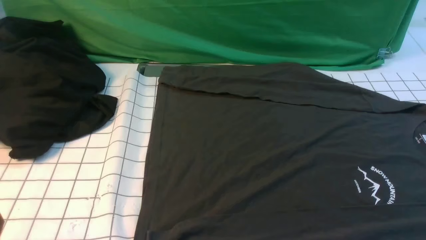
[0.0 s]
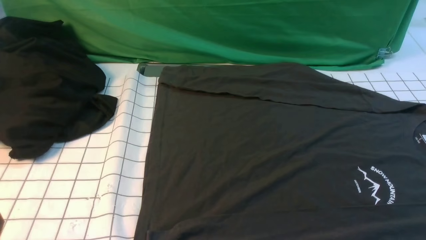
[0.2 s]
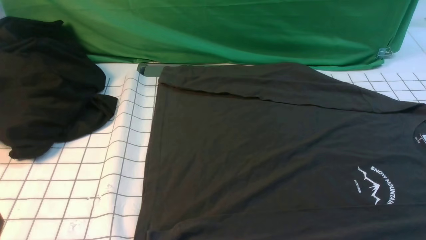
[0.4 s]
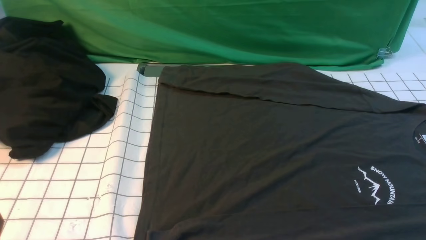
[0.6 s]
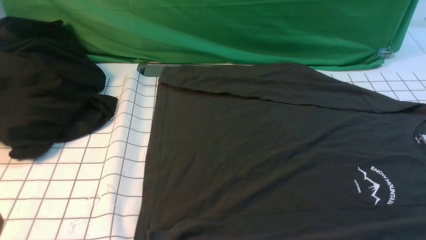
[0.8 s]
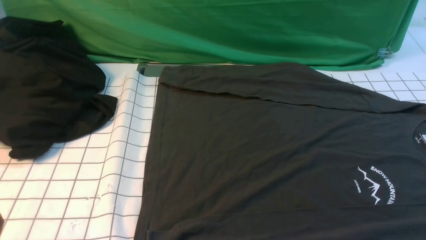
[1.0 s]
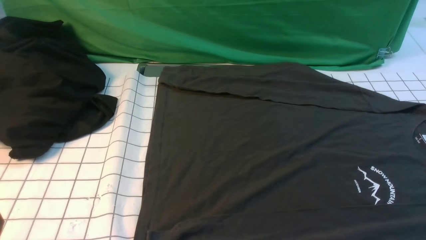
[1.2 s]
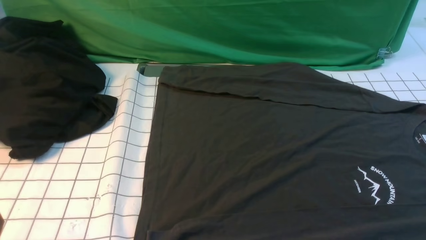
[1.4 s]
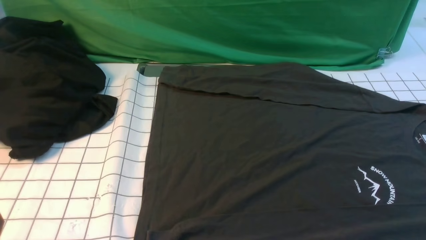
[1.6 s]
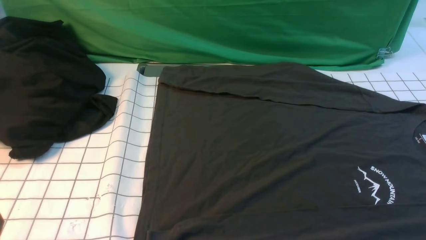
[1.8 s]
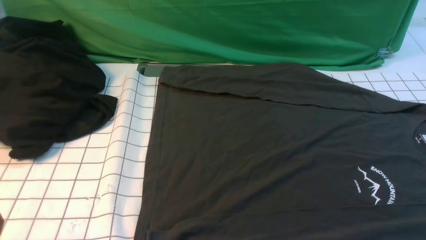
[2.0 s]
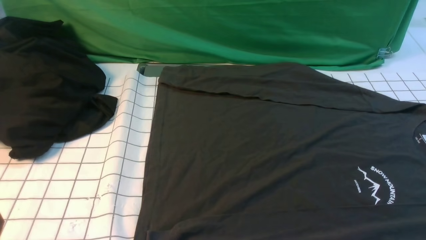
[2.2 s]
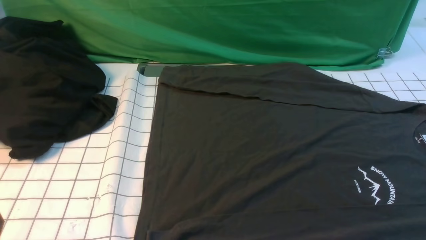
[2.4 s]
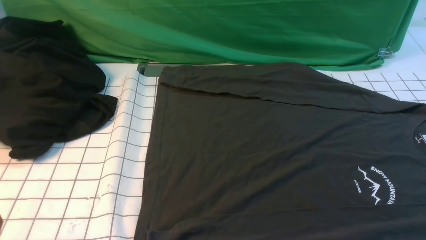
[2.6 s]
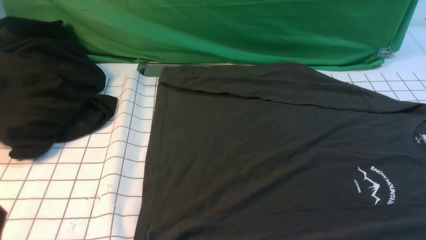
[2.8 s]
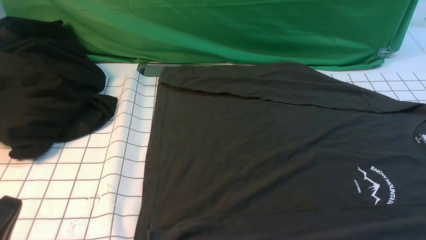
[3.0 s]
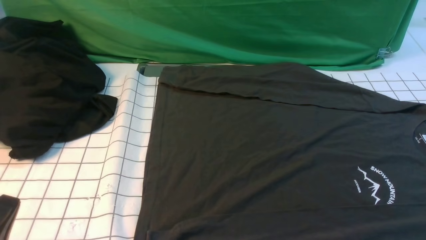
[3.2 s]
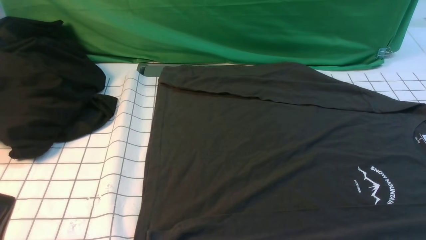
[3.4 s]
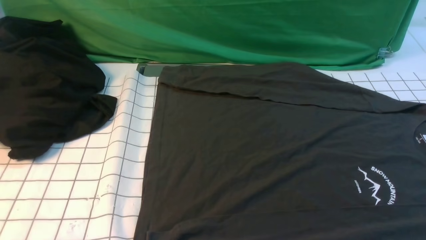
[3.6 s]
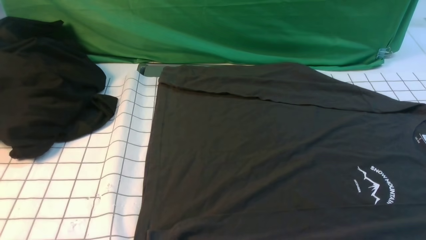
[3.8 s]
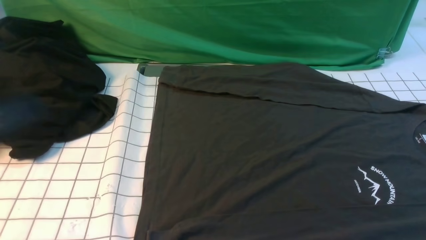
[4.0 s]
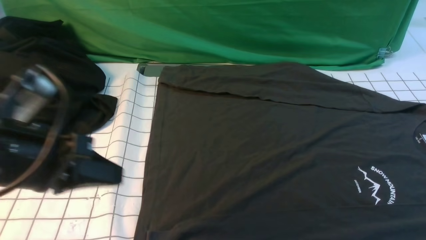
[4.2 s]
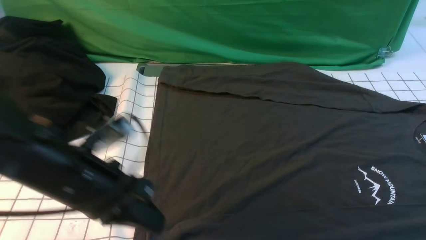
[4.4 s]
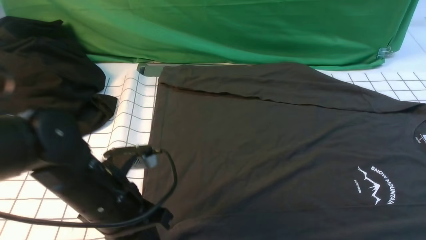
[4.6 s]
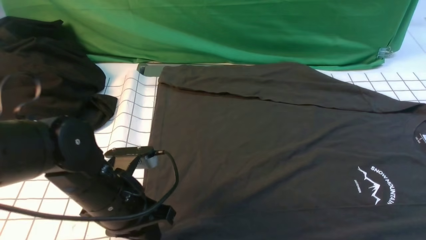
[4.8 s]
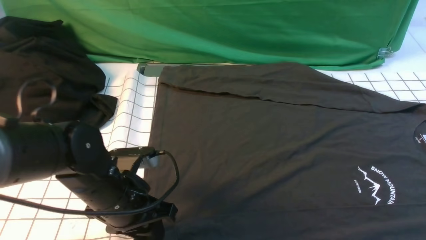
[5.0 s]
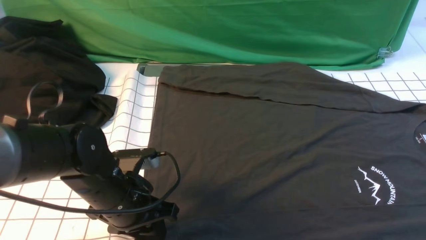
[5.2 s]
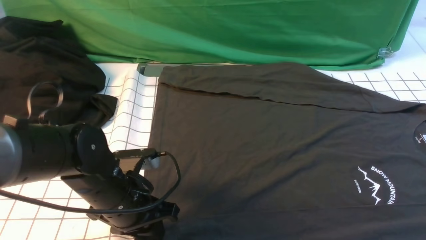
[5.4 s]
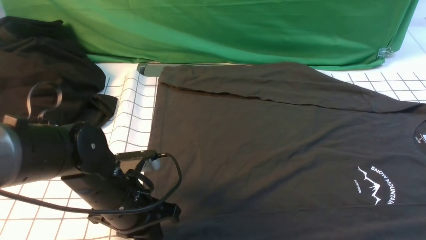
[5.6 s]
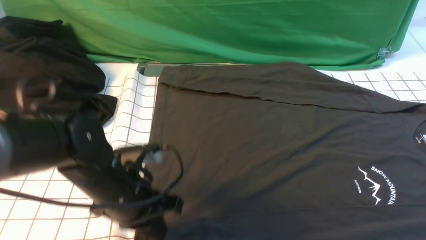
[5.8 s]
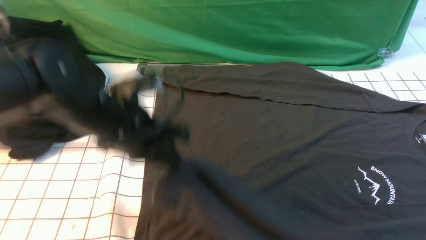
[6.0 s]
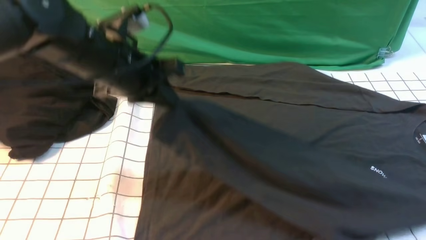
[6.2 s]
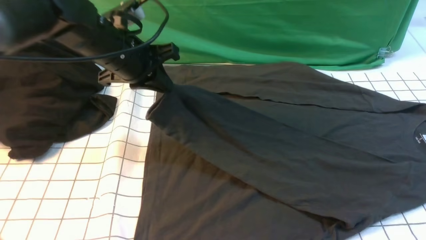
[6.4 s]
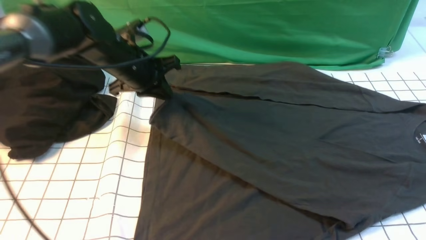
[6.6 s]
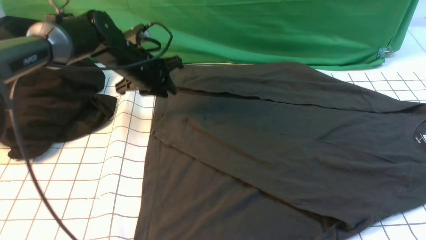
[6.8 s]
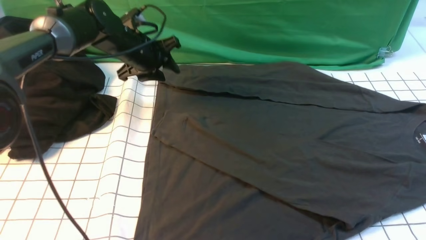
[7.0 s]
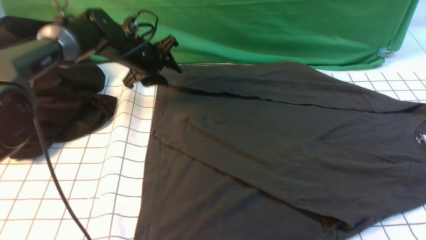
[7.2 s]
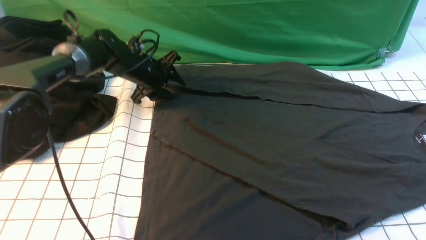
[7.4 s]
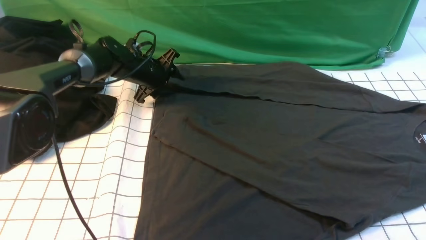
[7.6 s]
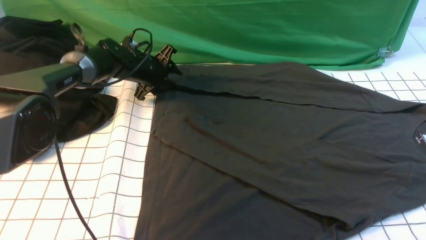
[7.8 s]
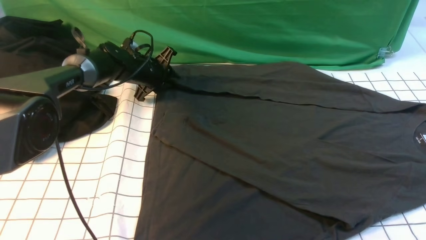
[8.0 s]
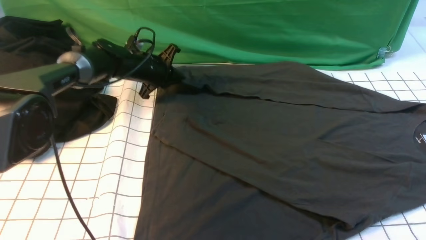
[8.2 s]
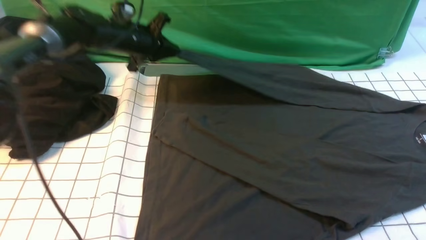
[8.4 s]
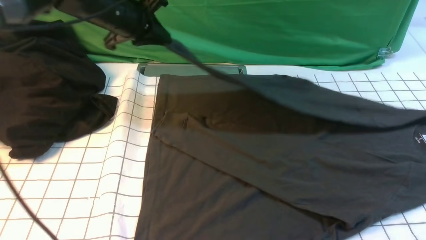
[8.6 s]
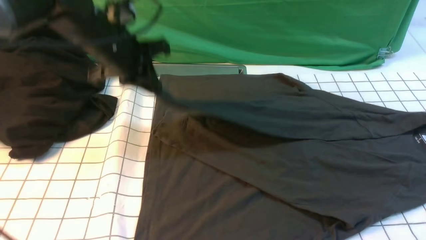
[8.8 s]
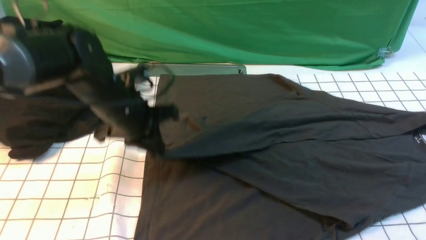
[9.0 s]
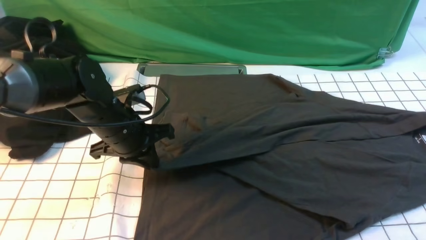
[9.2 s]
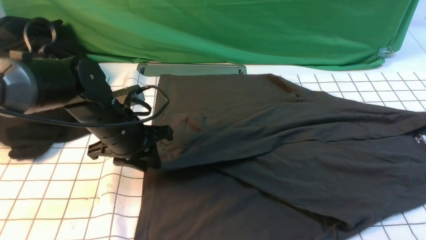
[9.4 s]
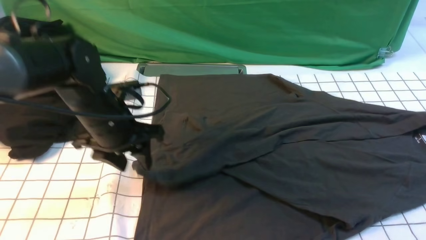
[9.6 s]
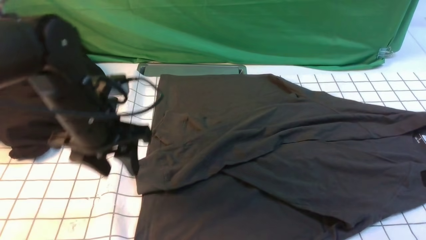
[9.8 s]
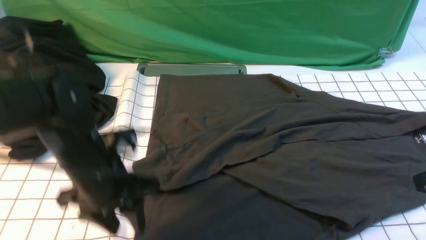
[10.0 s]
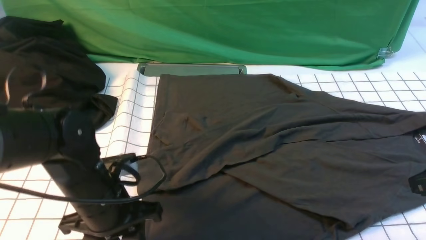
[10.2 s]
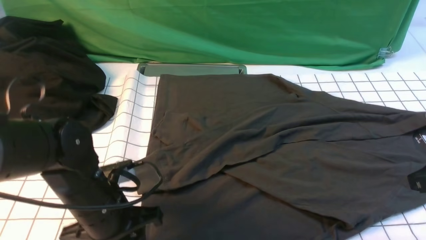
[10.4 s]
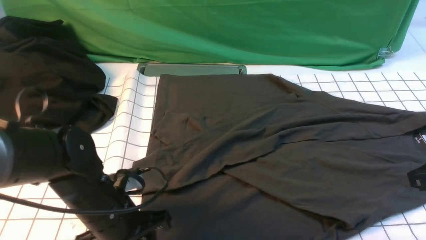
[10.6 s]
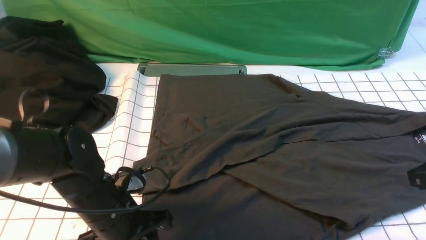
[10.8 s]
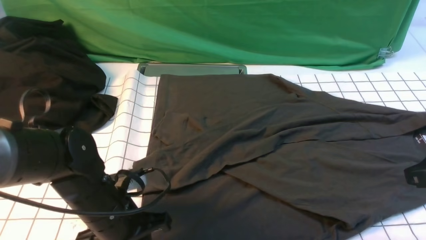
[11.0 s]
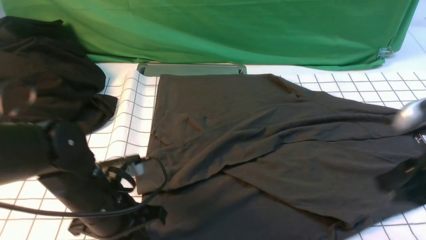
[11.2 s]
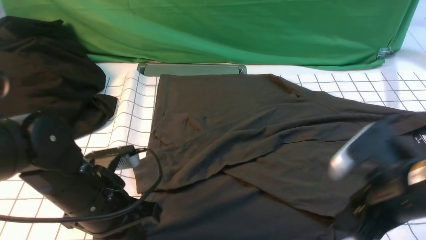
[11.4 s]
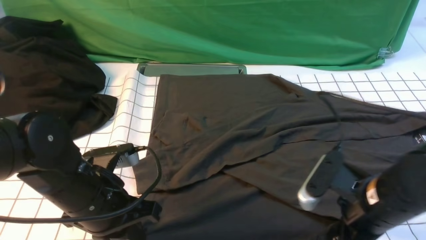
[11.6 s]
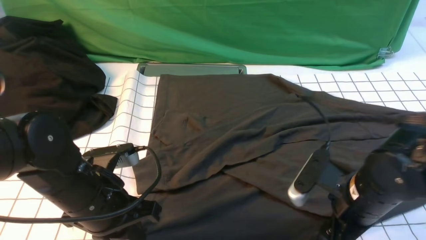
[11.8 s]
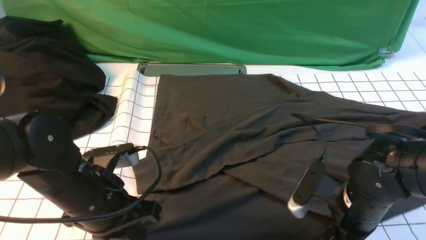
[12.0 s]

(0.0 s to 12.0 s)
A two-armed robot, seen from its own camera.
Step, 0.0 s - 5.6 s: use the left arm to clamp the cuff closest to it.
Step, 6.0 s - 6.6 s: use the left arm to drag and place the cuff at the centered position on the left edge of the fabric.
Step, 6.8 s - 8.0 s: use the left arm to clamp the cuff farthest from it.
Step, 8.2 s - 9.6 s: use the left arm to drag and drop the cuff onto the cuff closest to the left arm.
0.0 s - 1.6 s: Neither gripper changes place.
3.0 s - 4.4 s: The right gripper travels upward and forward by about 15 cm, and closes its fingers, while the left gripper heads forward and to the right, covering roughly 20 cm.
4.4 s - 6.0 s: The left gripper travels forward by about 10 cm, travels downward and back again, about 5 cm each way, and opens, then closes again.
6.0 s - 7.6 s: The left gripper goes approximately 25 cm forward and downward, and opens up.
7.6 s - 9.0 s: The left gripper goes roughly 20 cm backward and upward, and closes up.
9.0 s - 10.4 s: The right gripper moves forward, about 5 cm; the left gripper shifts approximately 15 cm backward and downward, and opens its fingers.
10.4 s - 12.0 s: The right gripper goes roughly 15 cm downward and to the left, and opens its fingers. Meanwhile the left gripper closes.

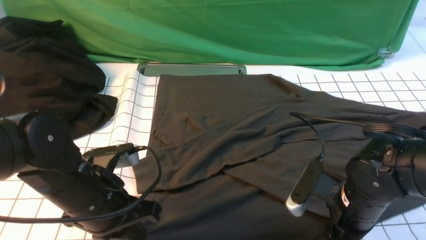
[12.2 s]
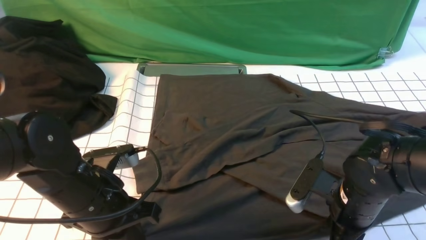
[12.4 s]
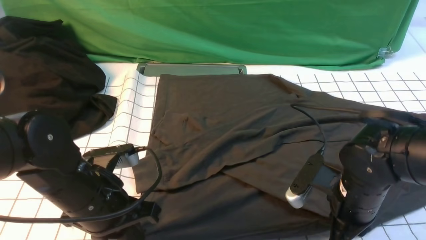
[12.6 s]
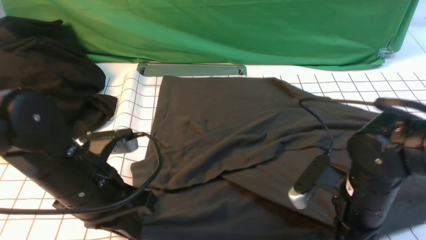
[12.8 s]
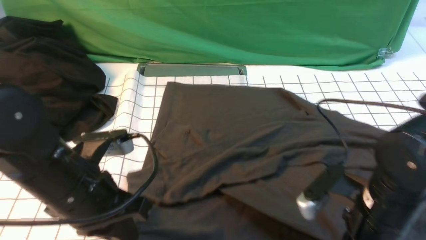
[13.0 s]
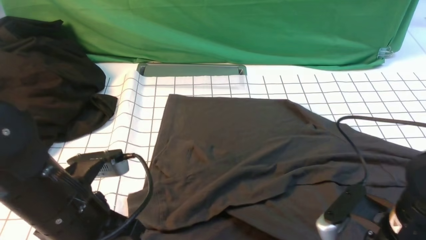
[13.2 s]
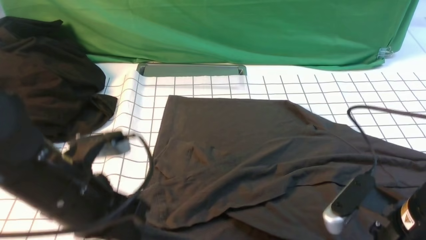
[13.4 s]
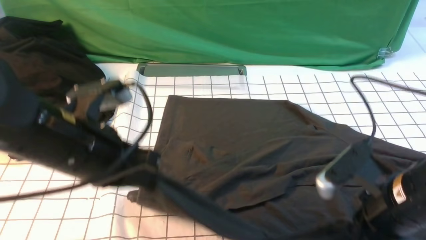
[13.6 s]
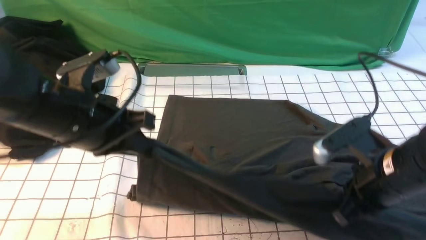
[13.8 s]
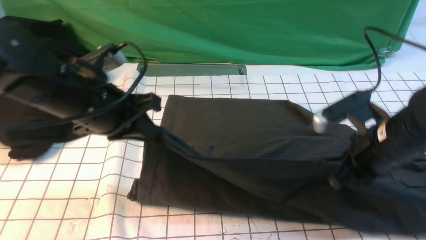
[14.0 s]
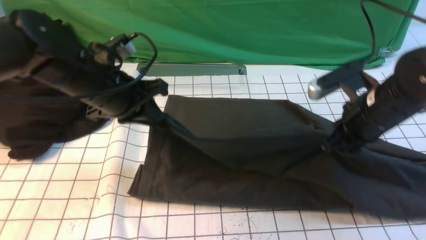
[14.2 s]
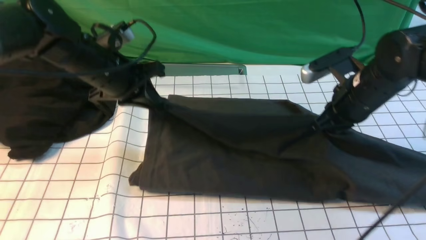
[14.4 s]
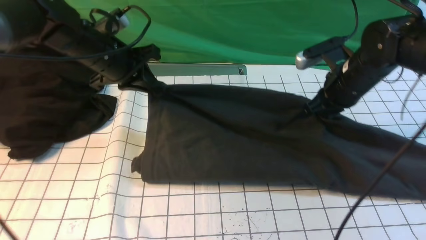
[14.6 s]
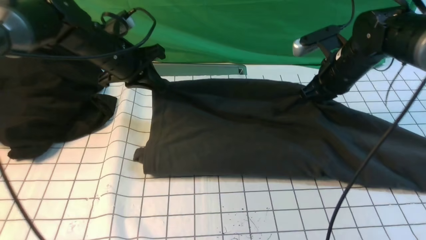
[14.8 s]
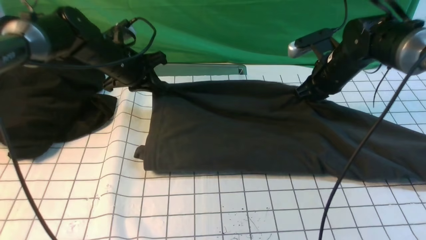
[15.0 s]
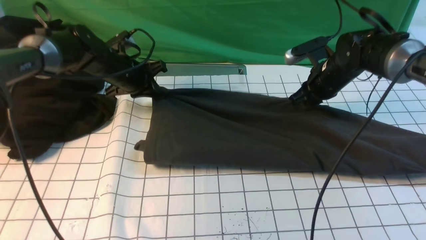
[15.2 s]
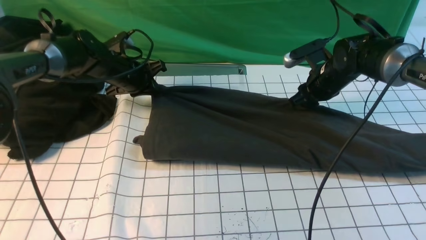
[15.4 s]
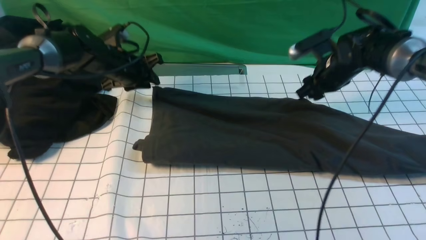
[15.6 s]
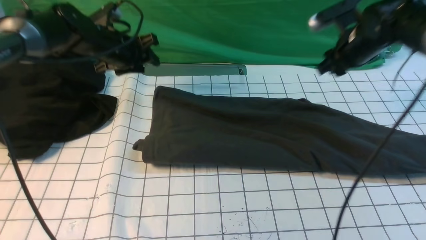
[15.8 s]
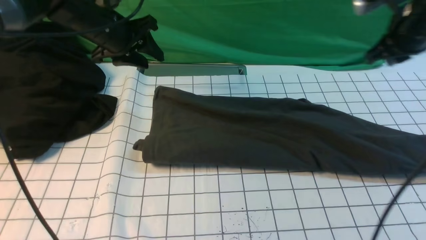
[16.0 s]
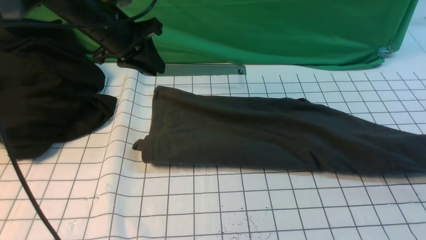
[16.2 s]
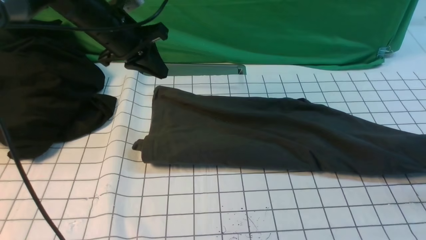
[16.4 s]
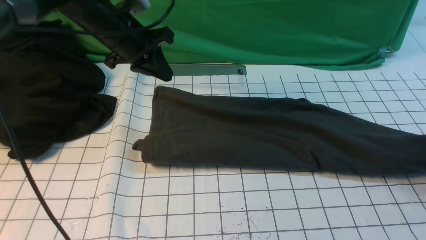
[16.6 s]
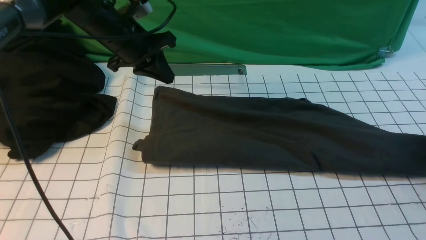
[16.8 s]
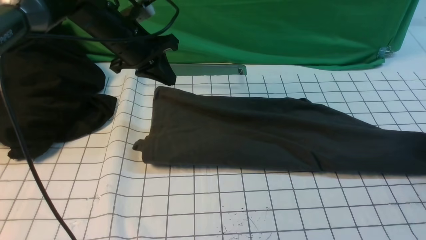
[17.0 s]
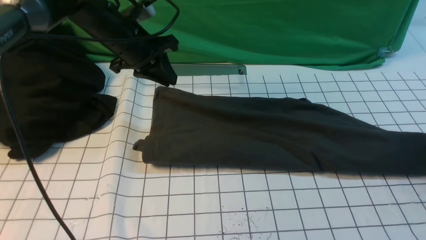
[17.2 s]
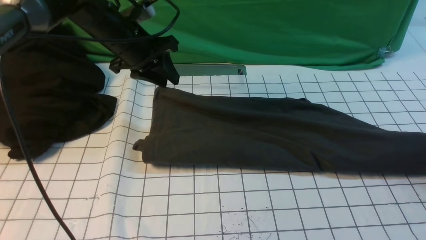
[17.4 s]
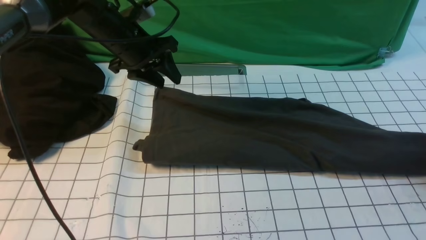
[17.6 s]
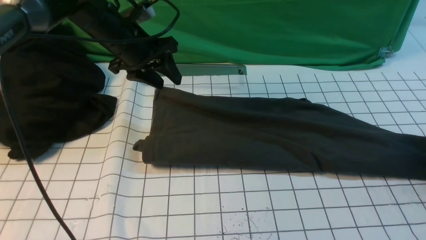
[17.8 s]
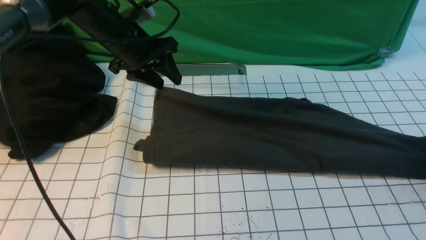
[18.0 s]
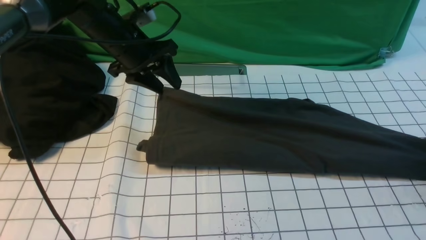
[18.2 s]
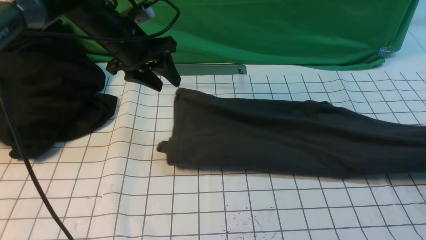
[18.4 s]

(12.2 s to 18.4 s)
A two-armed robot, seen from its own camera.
Step, 13.2 s - 15.6 s: use both arms to drag the lower edge of the fabric forward and fold it over the upper edge.
12.2 s - 13.8 s: Both grippers move upward, roughly 10 cm. The right gripper closes its fingers.
13.8 s - 15.4 s: The right gripper moves forward, roughly 25 cm, and opens its fingers, while the left gripper is displaced forward and downward by roughly 25 cm.
15.4 s - 16.8 s: The right gripper moves to the right and backward, roughly 25 cm, and closes. The left gripper goes roughly 10 cm upward, and opens, then closes again.
16.8 s - 18.4 s: The right gripper moves some 5 cm, and opens and closes again. Meanwhile the left gripper opens its fingers.
